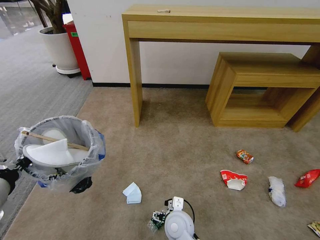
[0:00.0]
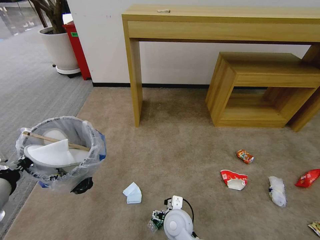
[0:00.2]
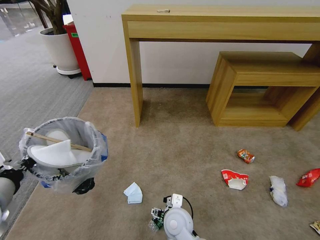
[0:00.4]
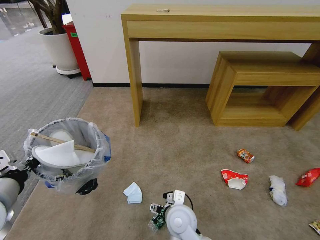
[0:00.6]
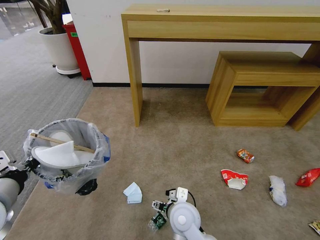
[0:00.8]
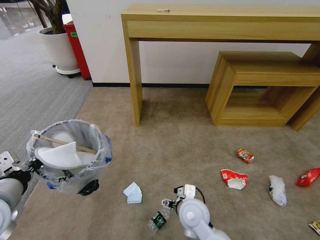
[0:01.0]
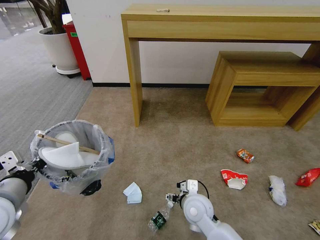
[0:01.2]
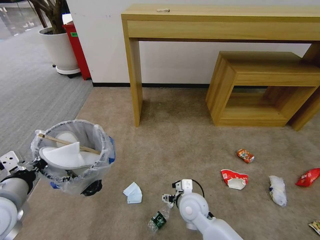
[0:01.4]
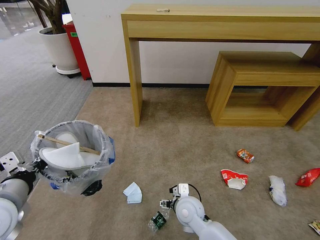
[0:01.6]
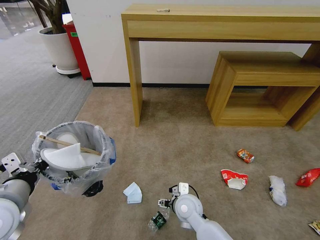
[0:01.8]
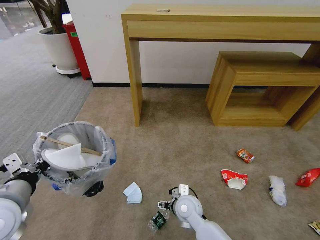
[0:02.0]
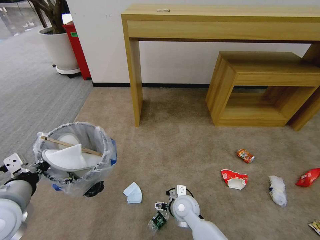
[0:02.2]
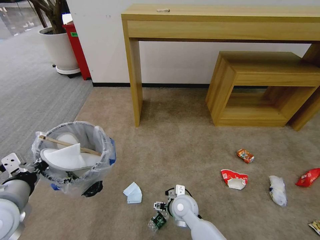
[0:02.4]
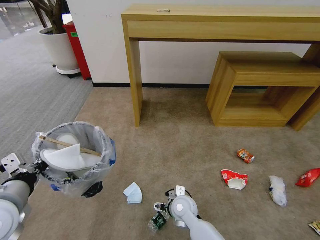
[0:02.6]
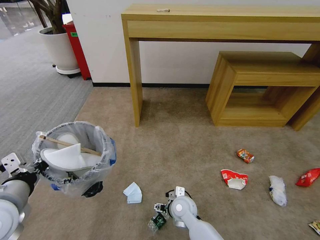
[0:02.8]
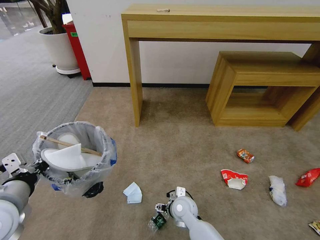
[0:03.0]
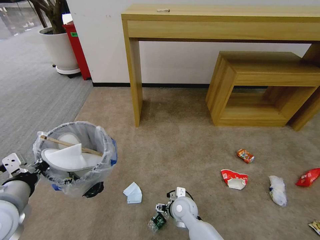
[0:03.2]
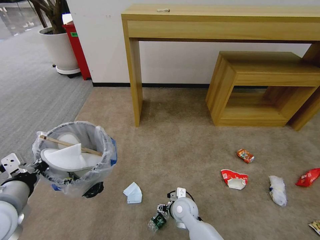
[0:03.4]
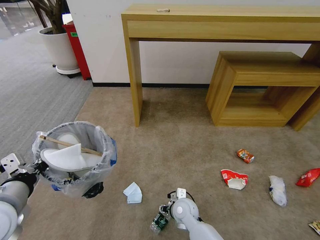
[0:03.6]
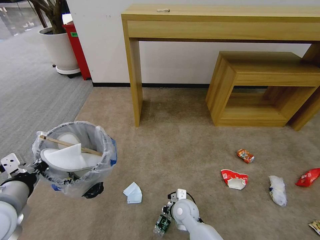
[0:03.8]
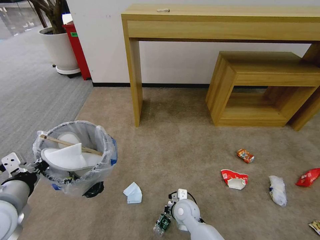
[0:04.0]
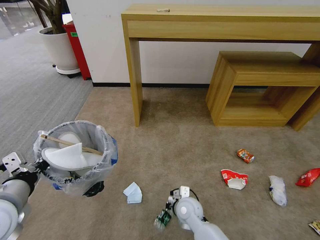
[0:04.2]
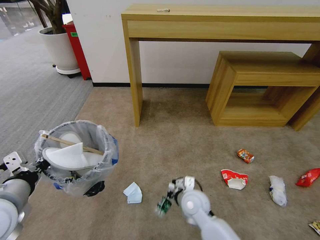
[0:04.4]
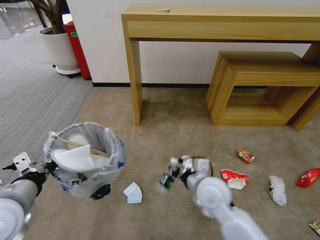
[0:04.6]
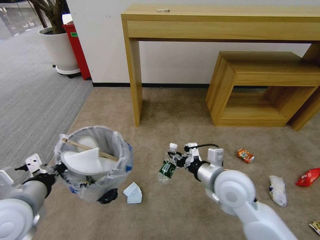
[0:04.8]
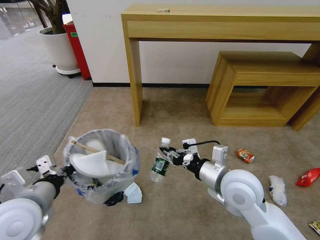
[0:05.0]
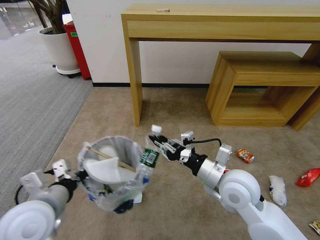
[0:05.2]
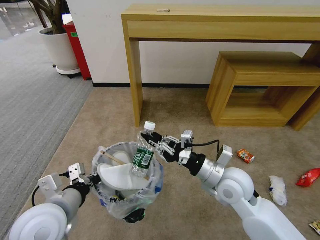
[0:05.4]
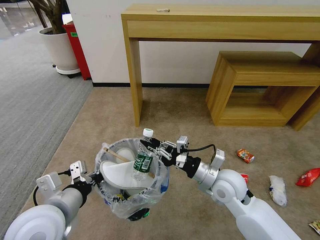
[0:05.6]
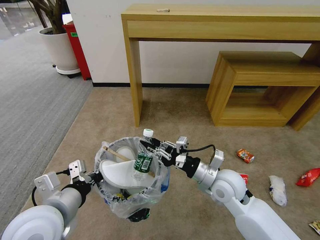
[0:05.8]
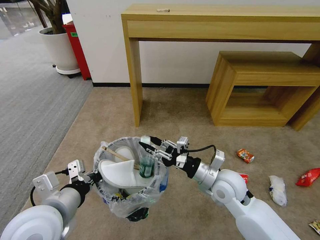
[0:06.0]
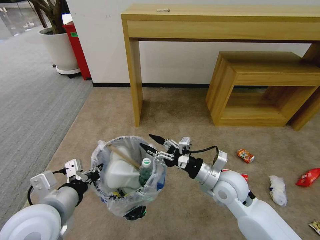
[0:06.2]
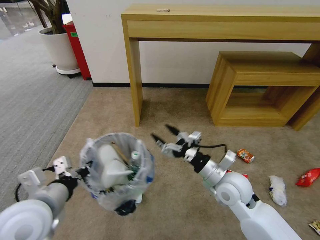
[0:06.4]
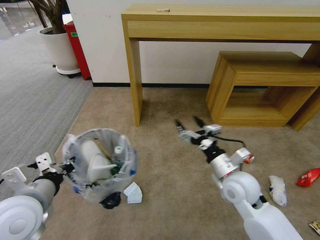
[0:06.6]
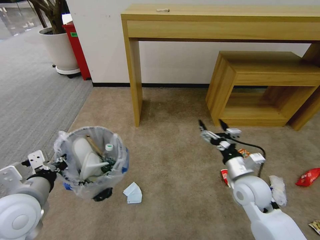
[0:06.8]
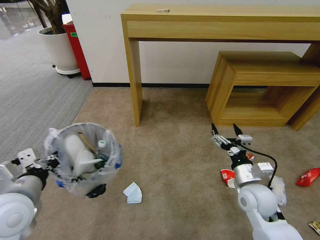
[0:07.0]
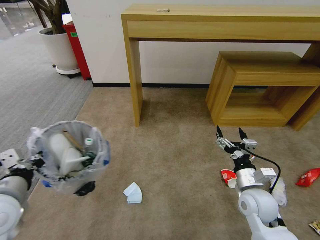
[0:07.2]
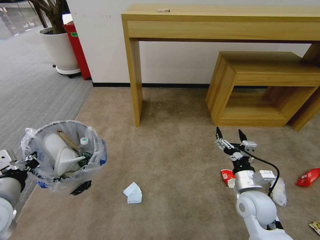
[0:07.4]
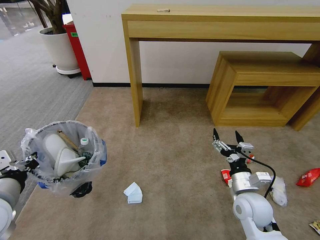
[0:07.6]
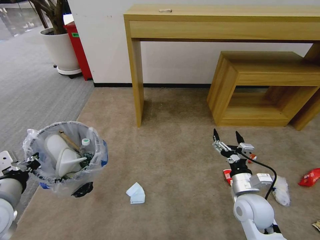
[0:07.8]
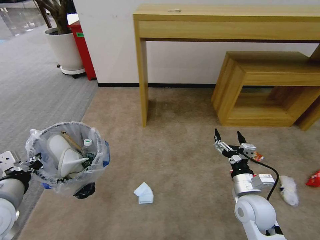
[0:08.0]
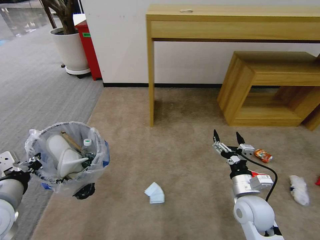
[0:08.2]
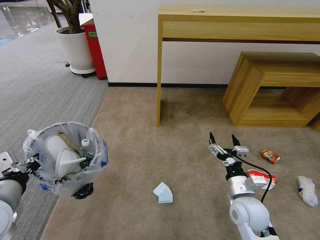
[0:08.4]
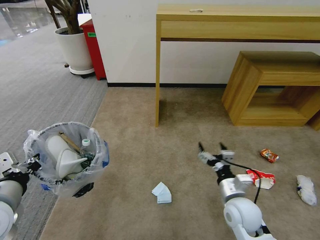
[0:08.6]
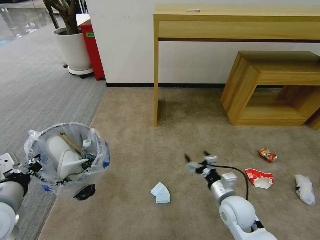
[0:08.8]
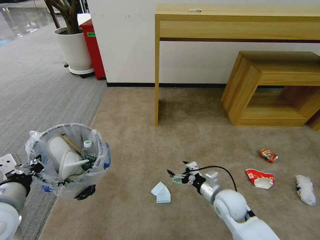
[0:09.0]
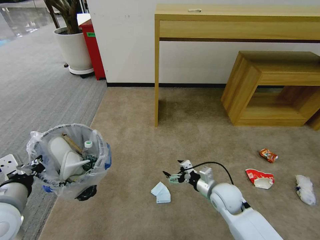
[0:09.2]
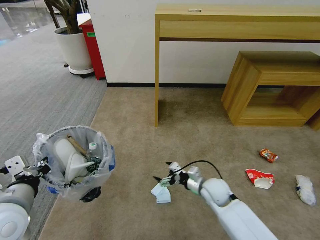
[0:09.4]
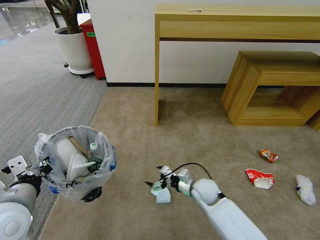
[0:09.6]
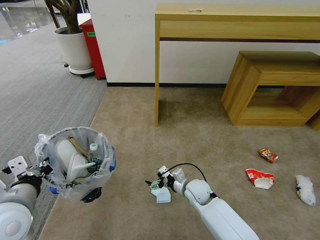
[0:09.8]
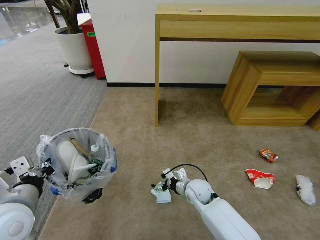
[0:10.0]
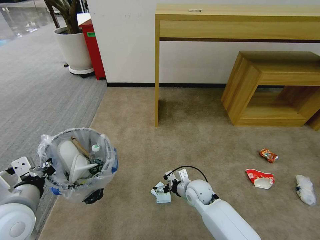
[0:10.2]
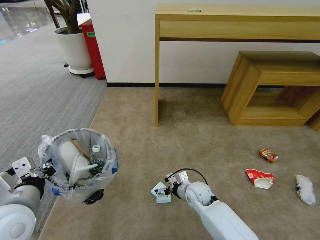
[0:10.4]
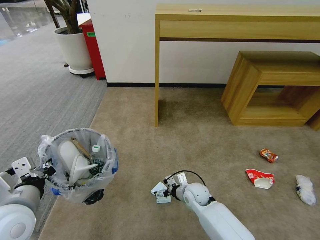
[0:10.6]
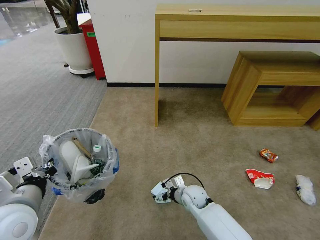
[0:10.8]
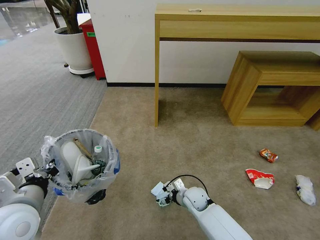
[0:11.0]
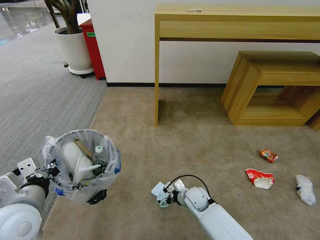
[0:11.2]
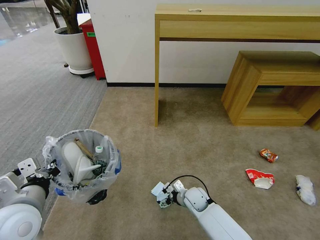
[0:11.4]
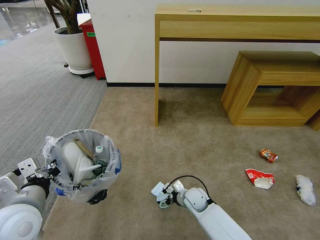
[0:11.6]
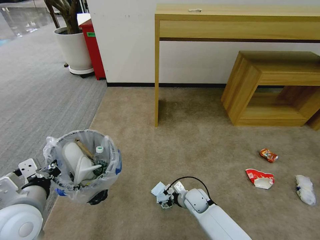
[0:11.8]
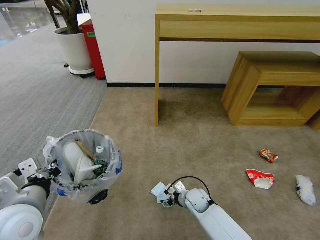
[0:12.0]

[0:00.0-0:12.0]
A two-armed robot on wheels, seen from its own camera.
Task of the whole recording: Pick up the trash bin and place the garbage on the floor into it.
0:00.0 to 0:01.6: The right gripper changes place by some 5 cm.
0:01.6 to 0:03.0: The right gripper goes about 5 cm downward.
0:03.0 to 0:04.4: The right gripper moves upward, some 10 cm, and closes.
0:04.4 to 0:06.0: The right gripper is displaced upward and to the right by approximately 10 cm. Meanwhile the left gripper is displaced to the right by some 10 cm.
0:06.0 to 0:07.6: The left gripper moves to the left, some 10 cm; the right gripper goes roughly 10 cm to the right and downward, and opens.
0:07.6 to 0:09.0: The right gripper moves approximately 5 cm.
0:09.0 to 0:10.4: The right gripper goes about 10 cm to the left, downward and forward.
0:10.4 to 0:12.0: The right gripper travels downward by roughly 5 cm.

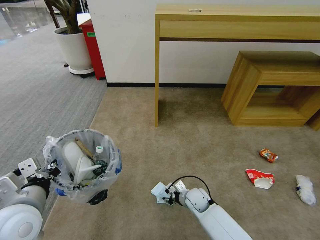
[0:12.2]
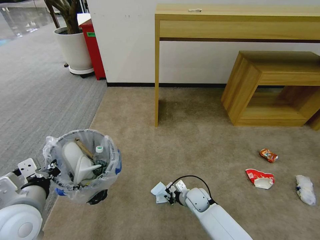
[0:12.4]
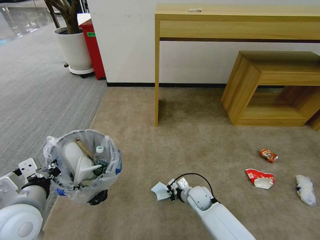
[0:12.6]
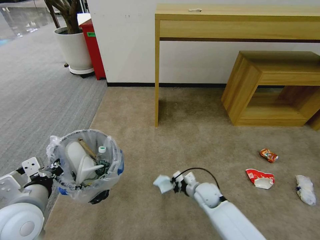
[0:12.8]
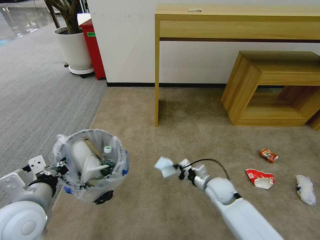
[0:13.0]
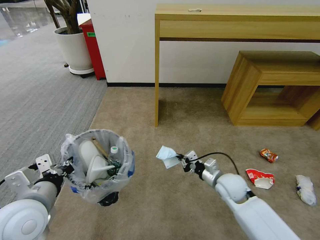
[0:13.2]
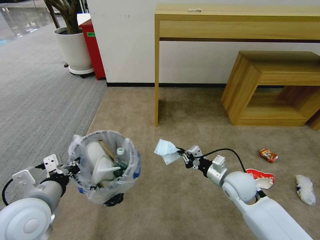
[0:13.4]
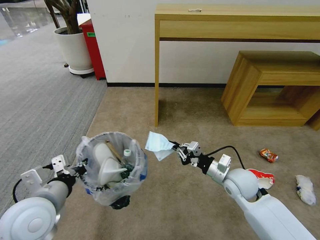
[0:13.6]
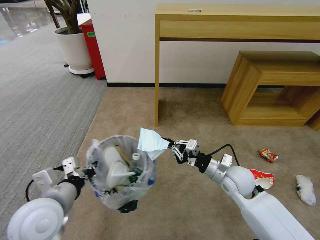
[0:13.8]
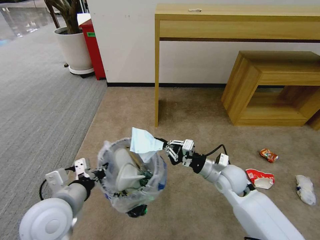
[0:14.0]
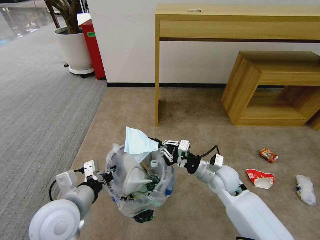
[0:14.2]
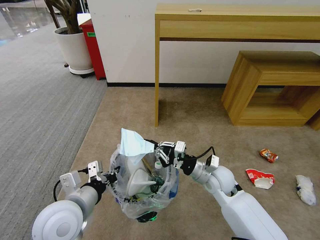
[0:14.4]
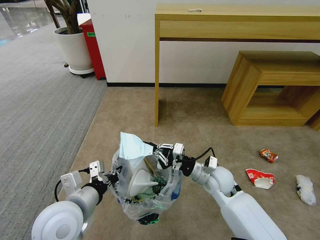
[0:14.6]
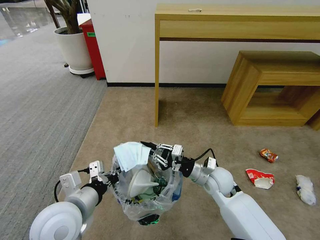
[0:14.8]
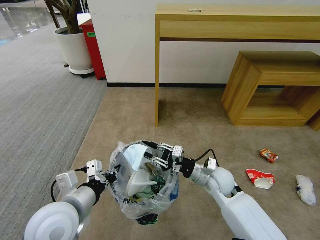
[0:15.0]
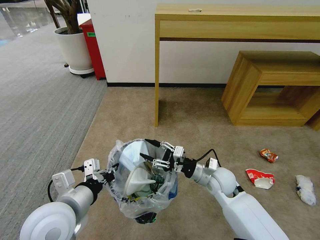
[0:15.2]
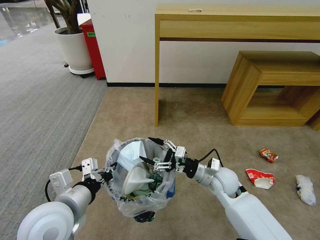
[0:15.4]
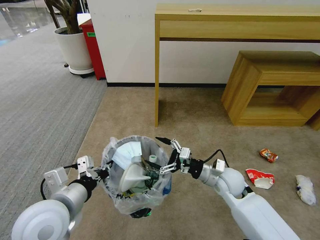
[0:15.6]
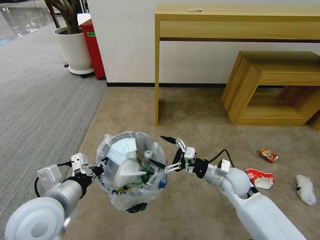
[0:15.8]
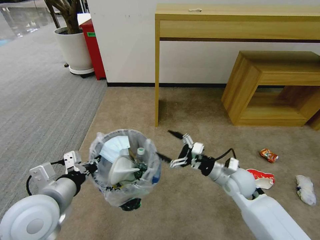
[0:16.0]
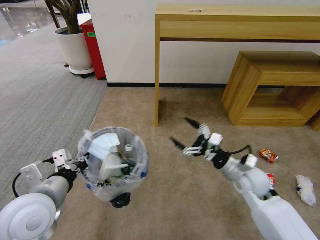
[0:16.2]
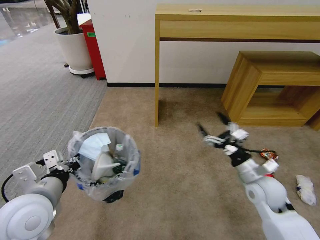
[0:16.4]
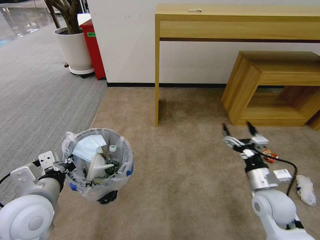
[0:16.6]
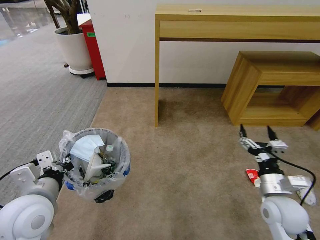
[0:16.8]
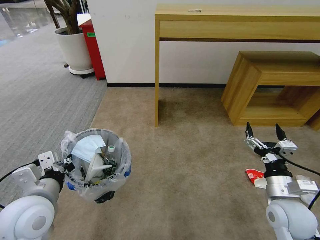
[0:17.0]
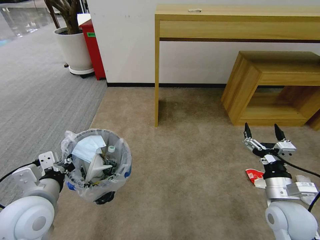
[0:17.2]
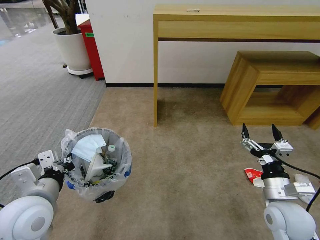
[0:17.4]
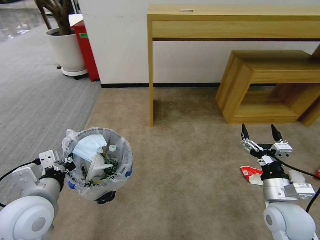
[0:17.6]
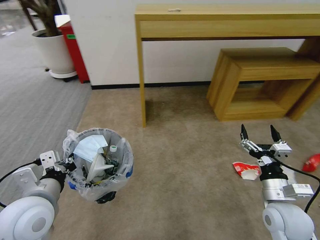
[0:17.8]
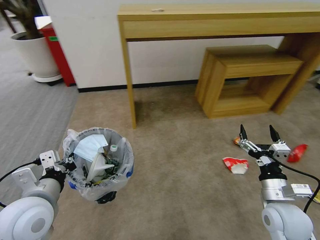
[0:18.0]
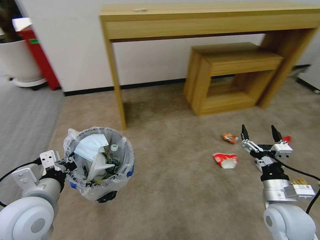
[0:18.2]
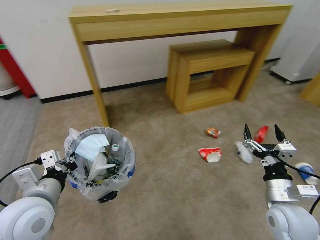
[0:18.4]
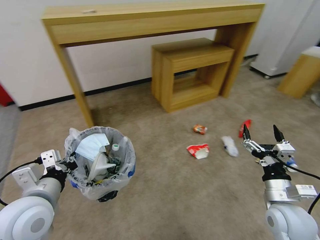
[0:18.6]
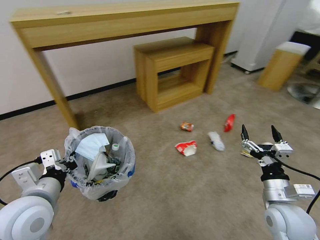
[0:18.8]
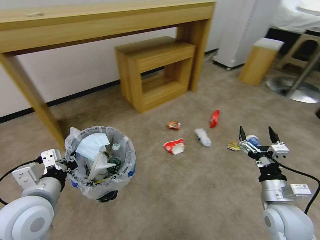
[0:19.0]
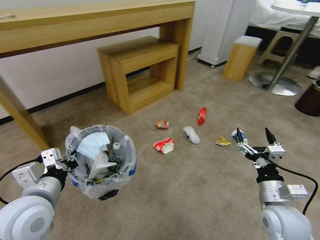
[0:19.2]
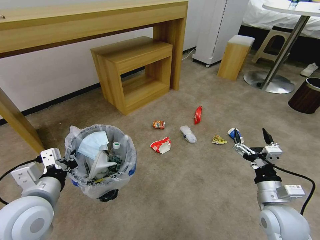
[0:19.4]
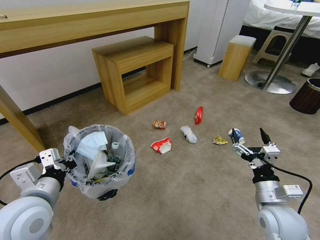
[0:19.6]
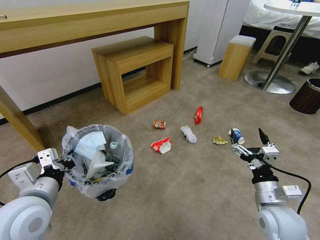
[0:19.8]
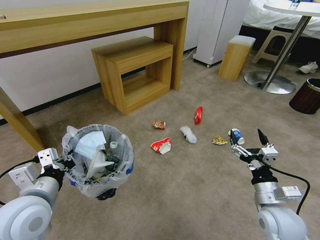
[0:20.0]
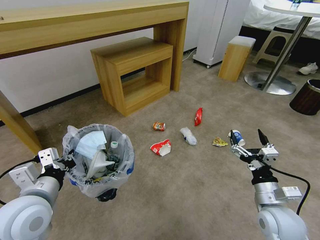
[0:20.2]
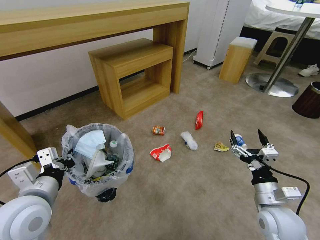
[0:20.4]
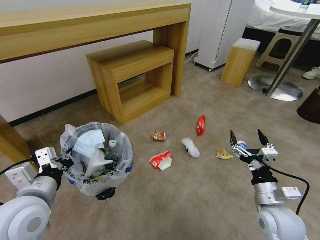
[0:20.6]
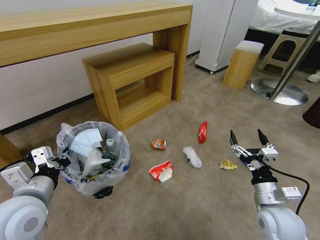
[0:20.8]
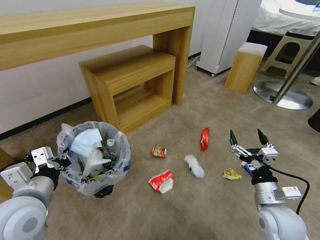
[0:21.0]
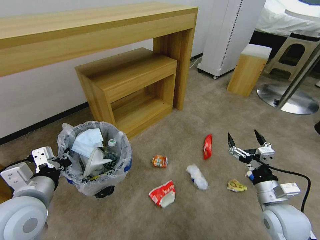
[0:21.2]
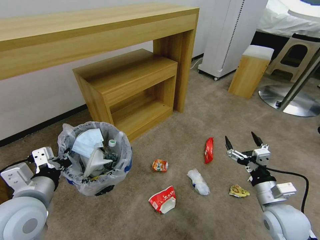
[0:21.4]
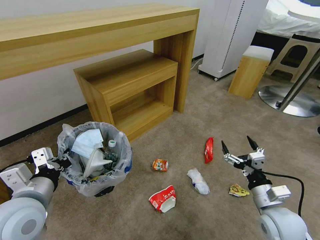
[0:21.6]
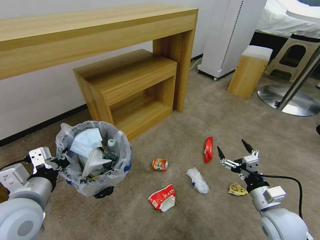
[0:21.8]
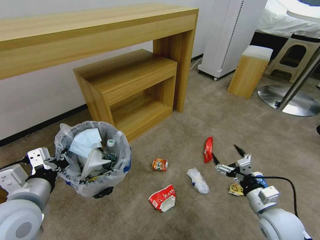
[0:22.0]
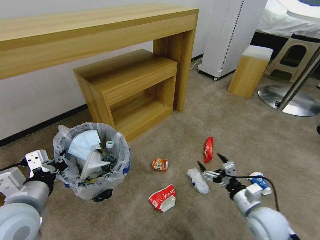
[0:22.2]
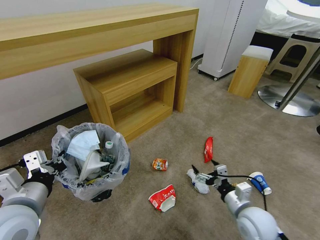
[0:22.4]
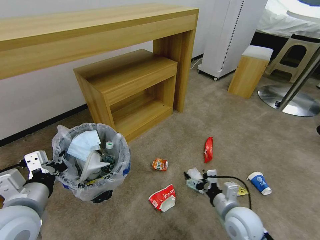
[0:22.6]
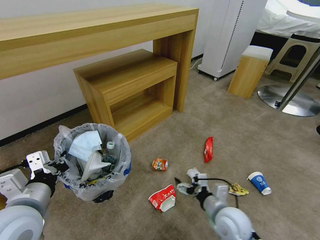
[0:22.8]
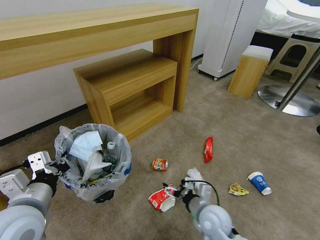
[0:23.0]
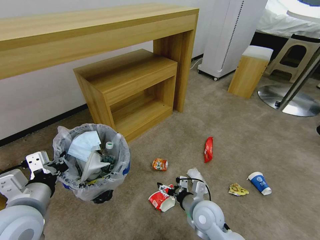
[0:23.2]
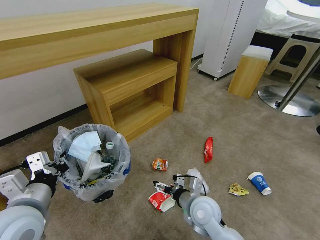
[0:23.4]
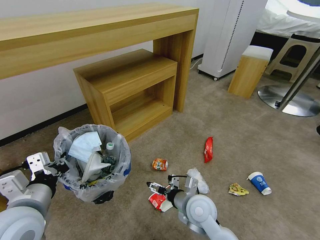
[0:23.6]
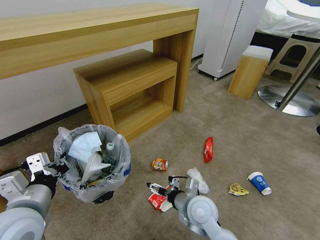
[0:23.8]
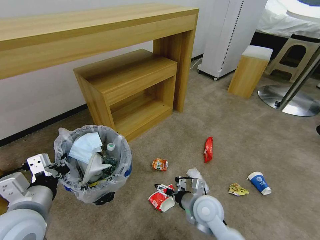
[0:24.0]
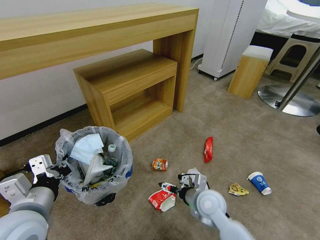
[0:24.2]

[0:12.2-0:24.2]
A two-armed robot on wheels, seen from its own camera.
Task of the whole recording: Pick up the trash bin and place the garbage on the floor into it.
0:12.2 to 0:13.8: The right gripper is displaced upward and to the right by roughly 20 cm, and closes up.
0:13.8 to 0:15.2: The right gripper ends up roughly 5 cm from where it was, and opens up.
0:15.2 to 0:16.6: The right gripper travels to the right and backward by roughly 15 cm, and opens. The left gripper moves to the left, about 5 cm.
0:21.2 to 0:22.6: The right gripper travels to the left by some 10 cm.
0:22.6 to 0:24.2: The right gripper goes approximately 10 cm to the left and forward.
